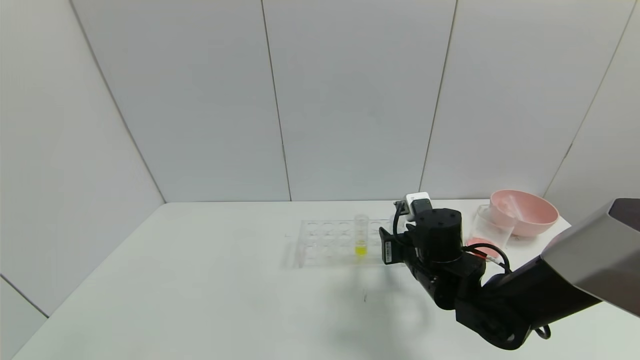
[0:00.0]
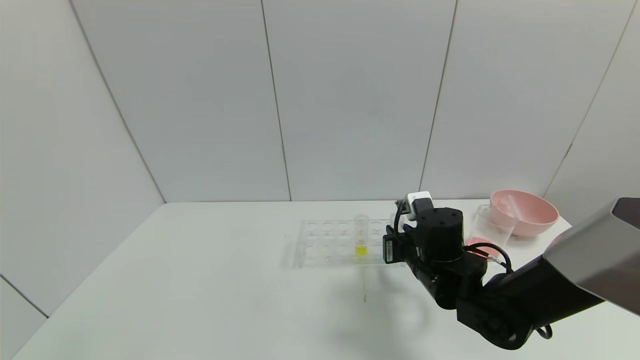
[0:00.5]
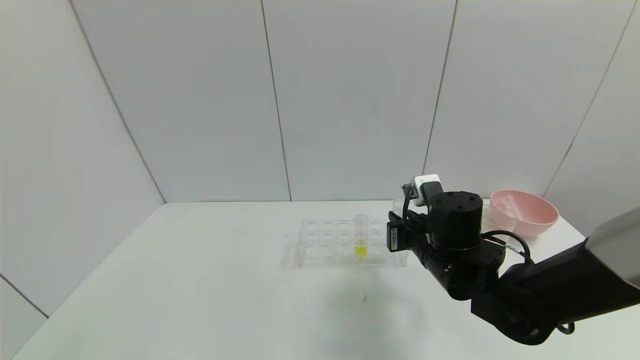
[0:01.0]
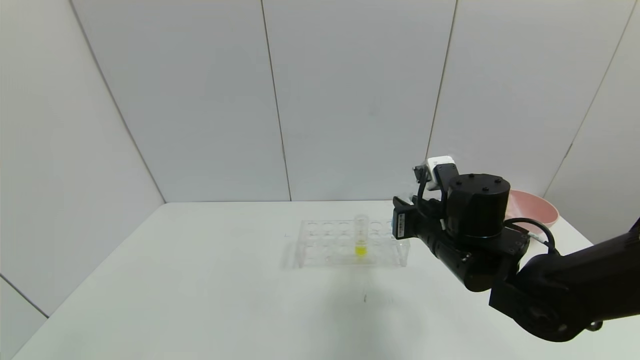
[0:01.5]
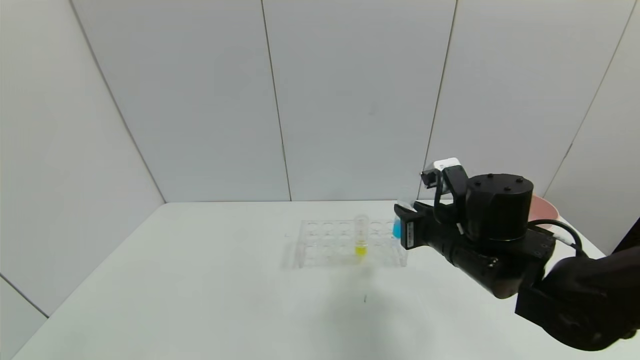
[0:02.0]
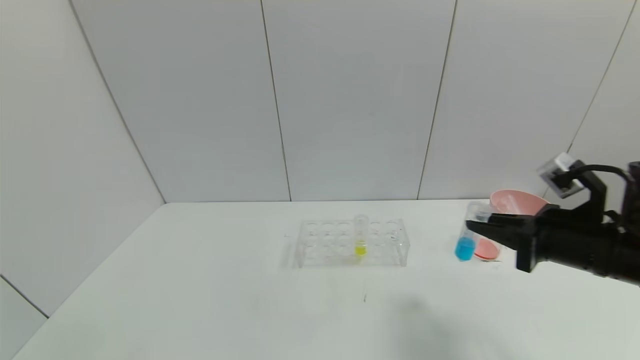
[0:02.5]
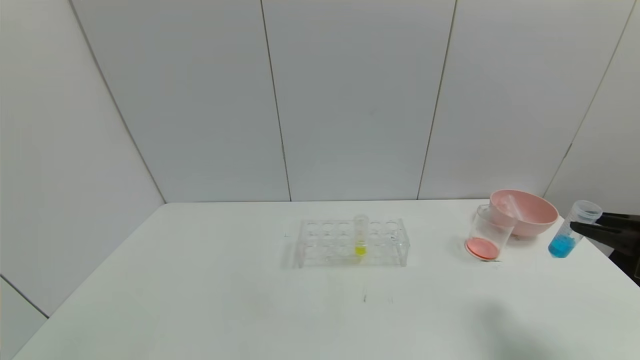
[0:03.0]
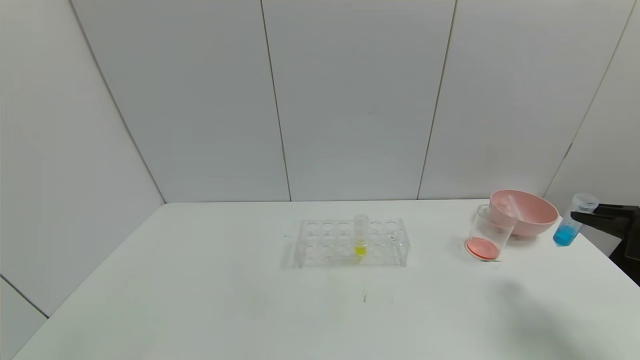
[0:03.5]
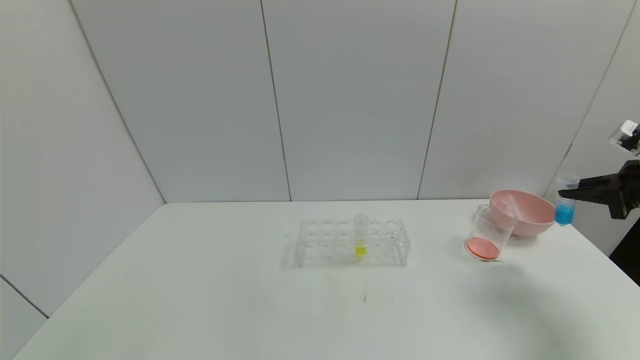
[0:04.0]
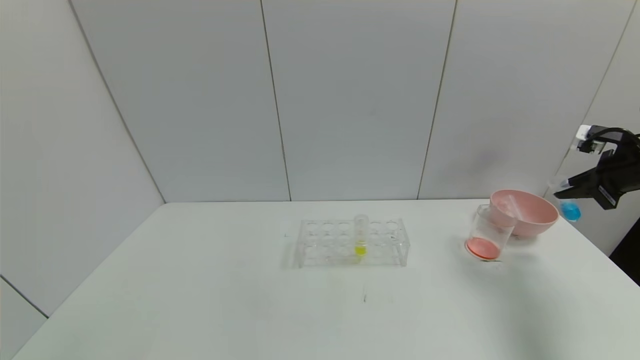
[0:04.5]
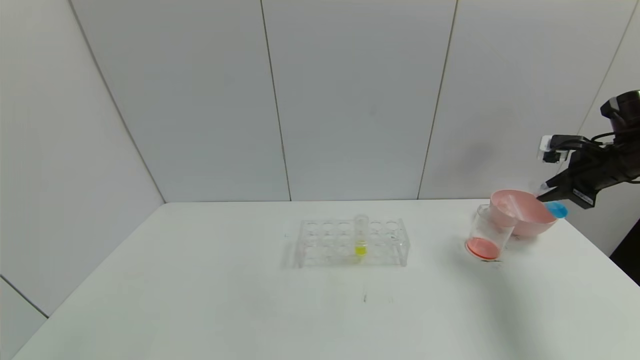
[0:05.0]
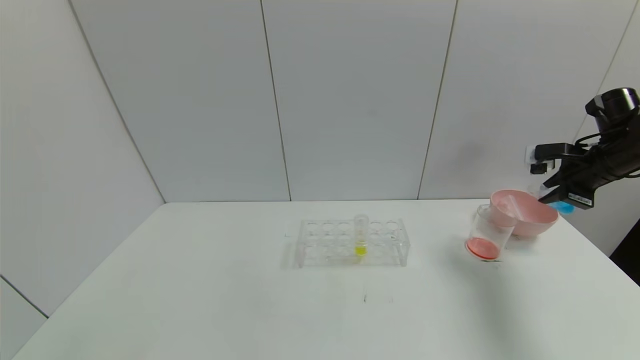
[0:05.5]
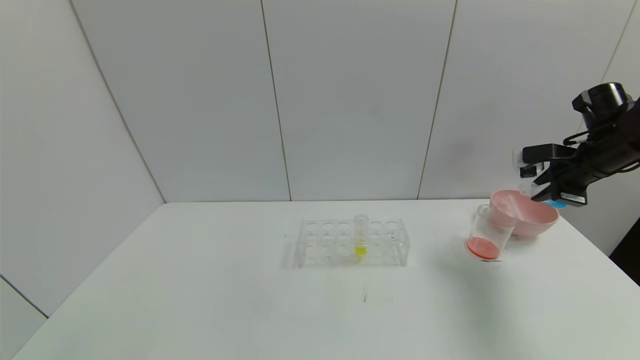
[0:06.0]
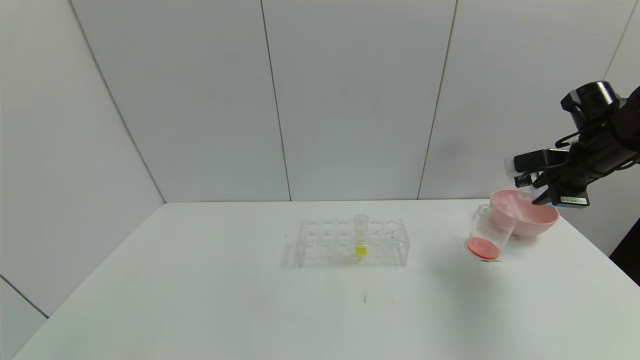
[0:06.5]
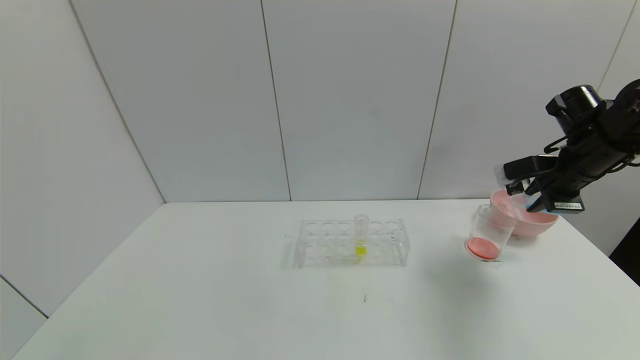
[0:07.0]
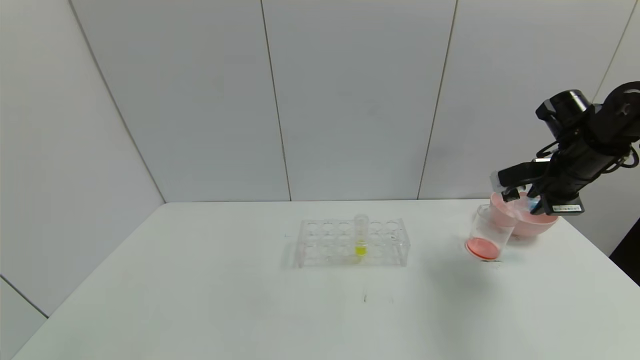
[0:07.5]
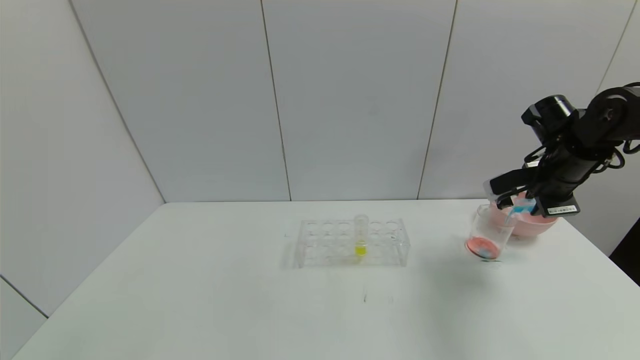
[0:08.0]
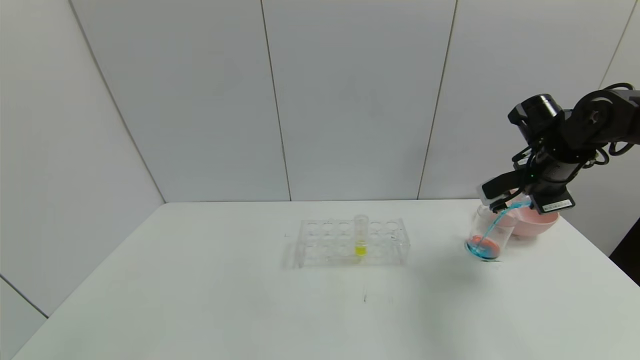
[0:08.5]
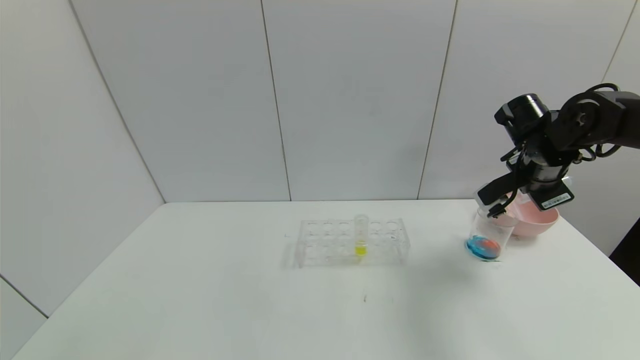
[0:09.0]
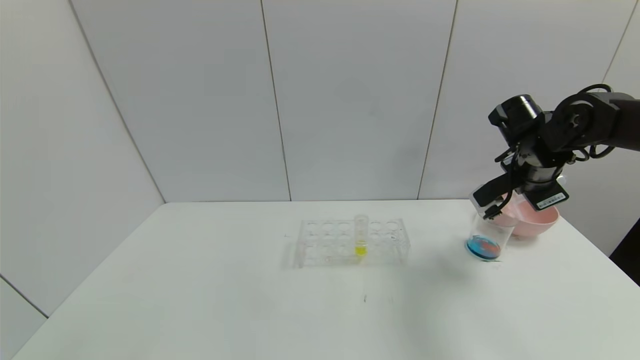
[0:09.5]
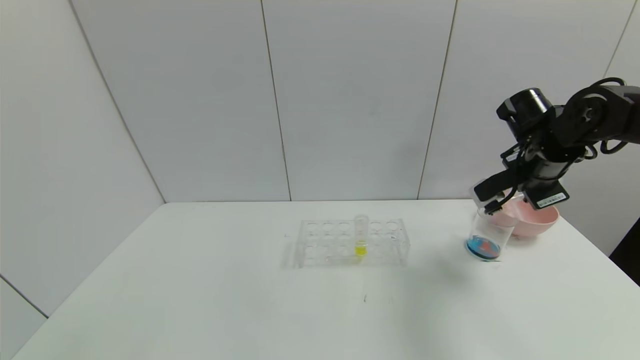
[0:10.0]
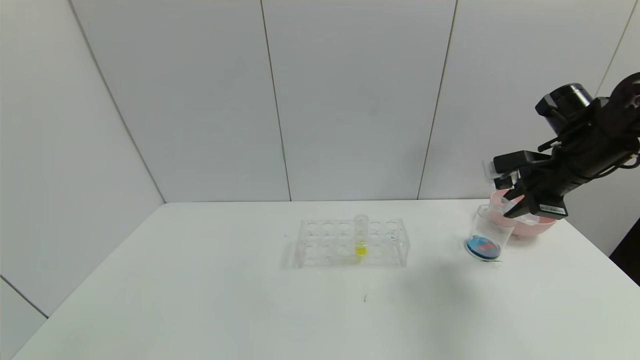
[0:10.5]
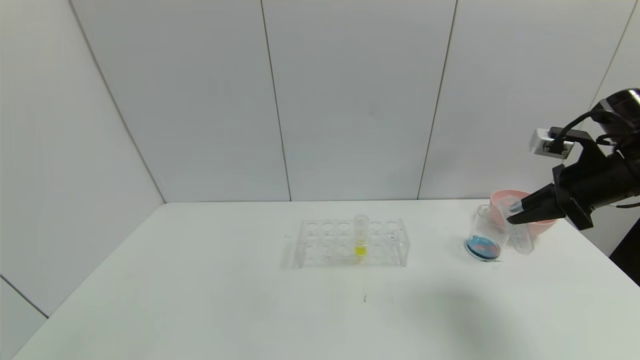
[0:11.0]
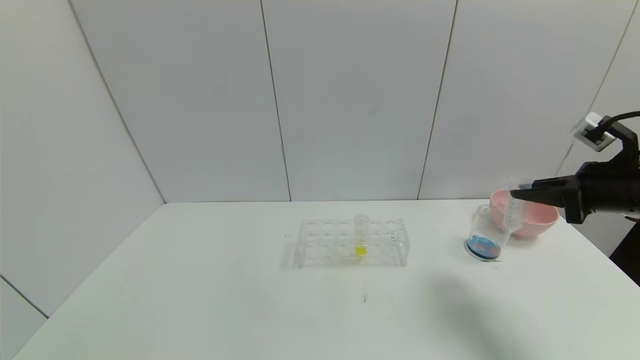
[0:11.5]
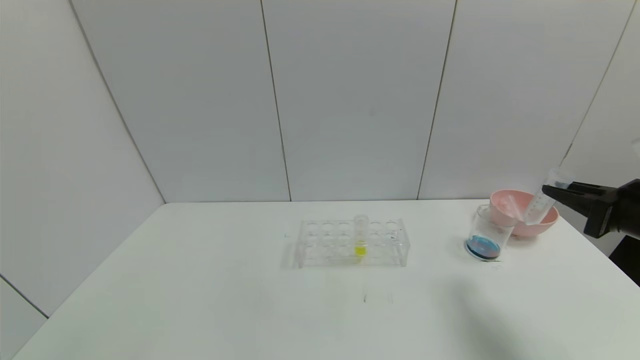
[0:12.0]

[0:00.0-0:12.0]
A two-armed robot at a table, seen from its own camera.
Task of the whole recording: pick up the test tube with red pigment and the test tube with blue pigment by grippers and pour them into the container.
Step, 0:00.5 to 0:09.0: Pour the blue reagent into the graduated cylinder with the right gripper.
0:00.0 to 0:02.0: The right gripper goes roughly 5 cm upward, and closes.
0:02.0 to 0:04.0: The right gripper moves to the right, roughly 30 cm.
0:04.0 to 0:06.0: The right gripper shifts about 10 cm forward and to the left.
0:06.0 to 0:08.0: The right gripper travels to the left by some 5 cm.
0:10.0 to 0:12.0: The right gripper is displaced backward and to the right by about 15 cm.

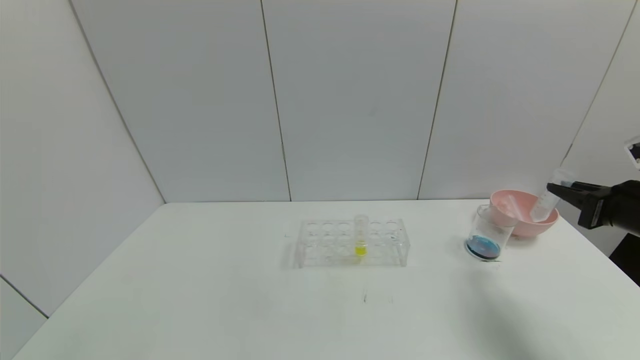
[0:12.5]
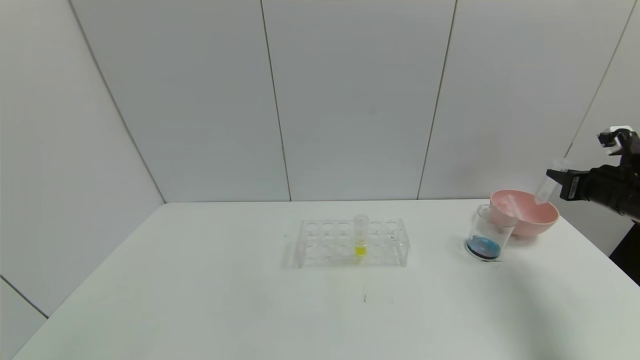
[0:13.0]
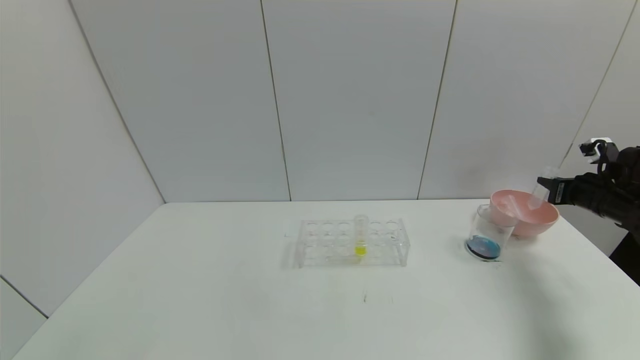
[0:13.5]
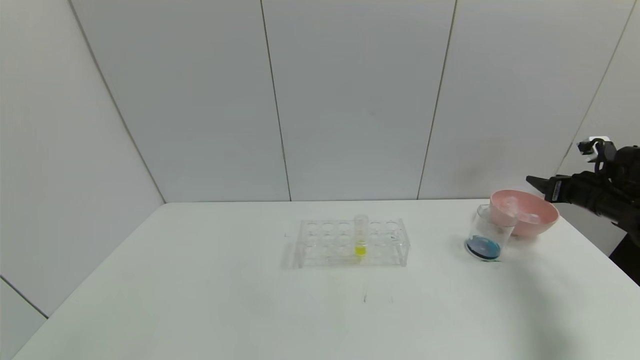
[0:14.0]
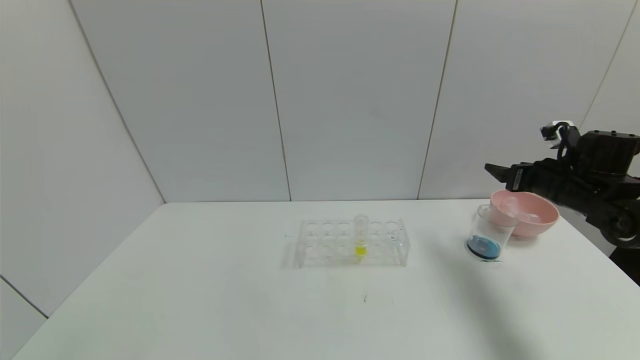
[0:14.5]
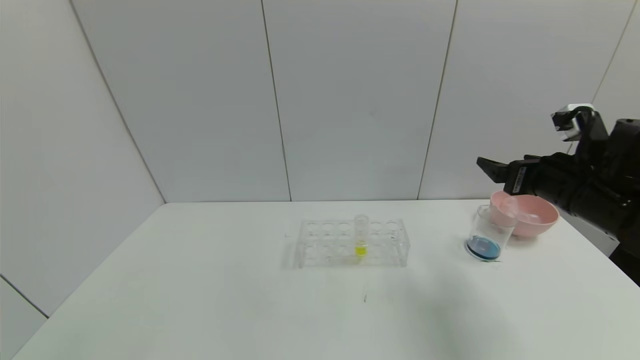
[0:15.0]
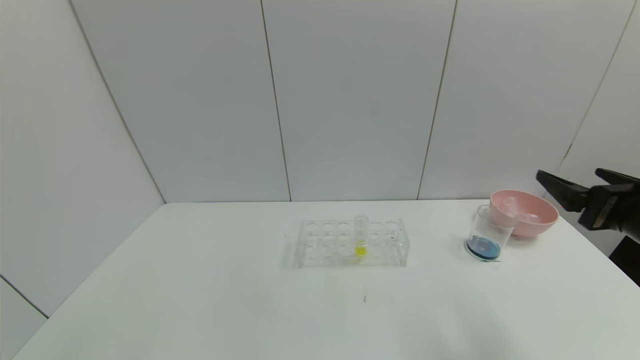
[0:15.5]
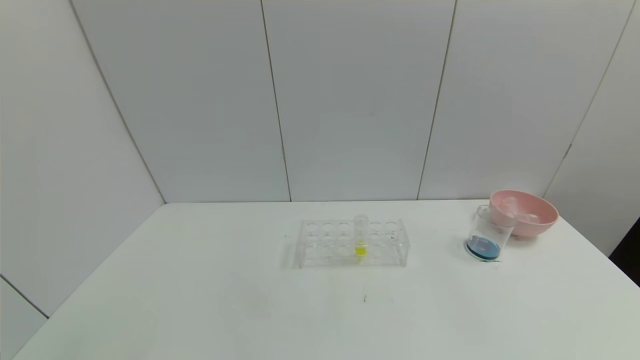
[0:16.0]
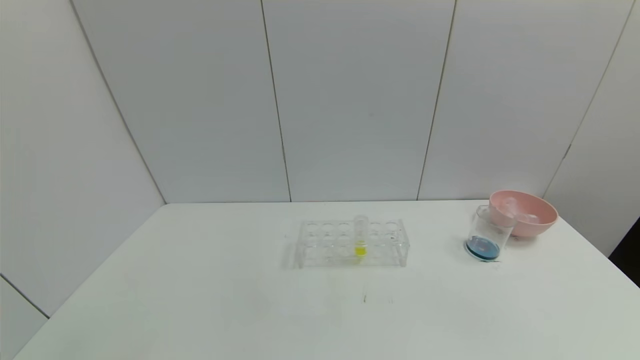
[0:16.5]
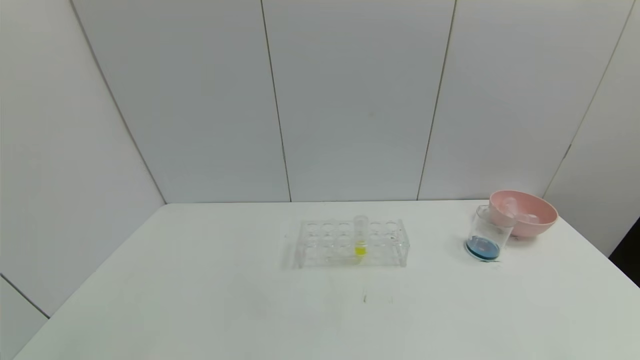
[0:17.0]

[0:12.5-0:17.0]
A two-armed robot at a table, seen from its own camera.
Task of the whole recording: pick up the test tube with red pigment and the test tube with blue pigment by grippers and pour them into the container.
0:12.5 to 0:14.5: The right gripper is displaced forward by some 10 cm, and opens.
0:14.5 to 0:17.0: The right gripper travels backward by about 40 cm.
